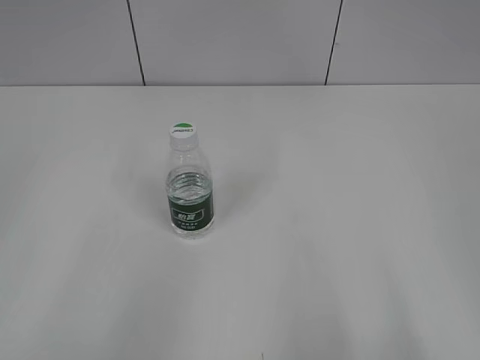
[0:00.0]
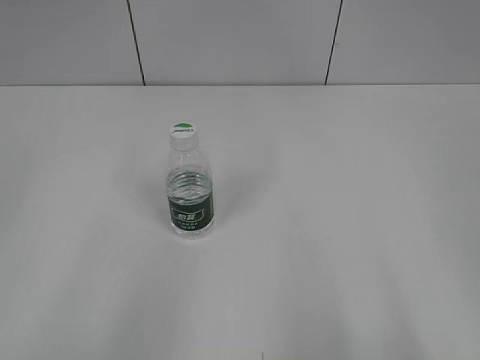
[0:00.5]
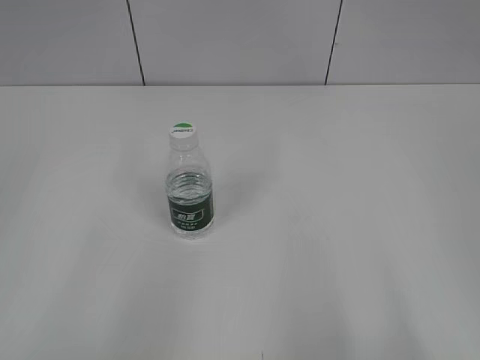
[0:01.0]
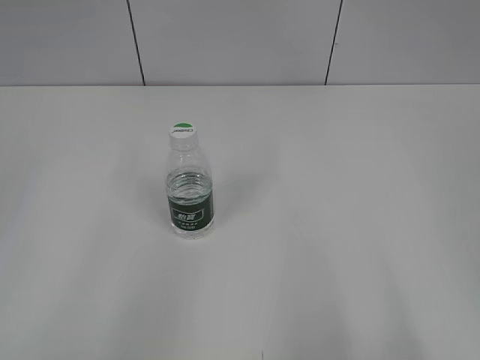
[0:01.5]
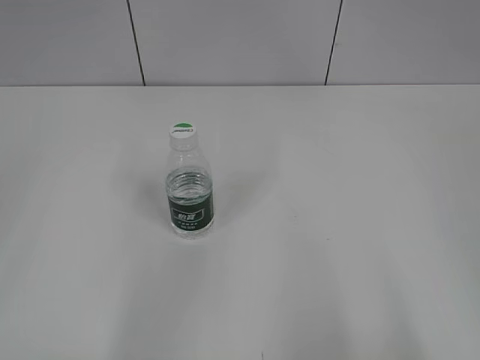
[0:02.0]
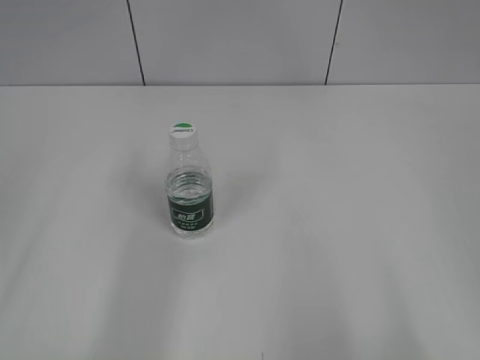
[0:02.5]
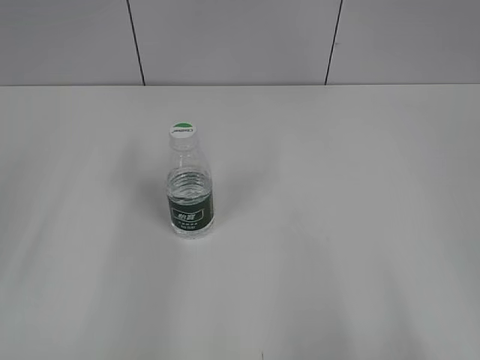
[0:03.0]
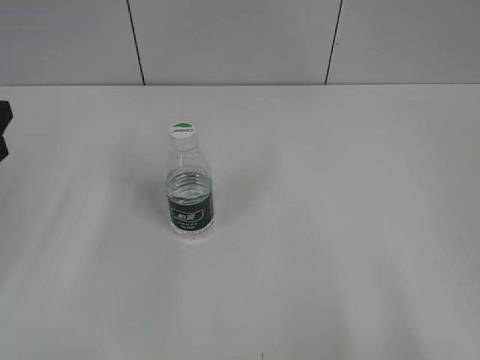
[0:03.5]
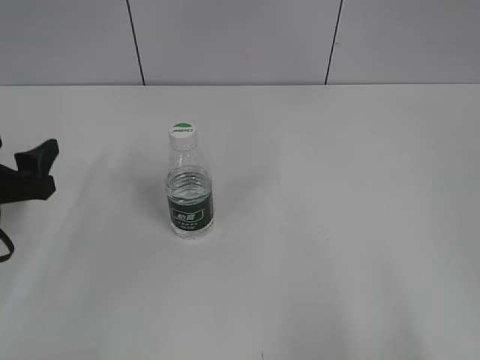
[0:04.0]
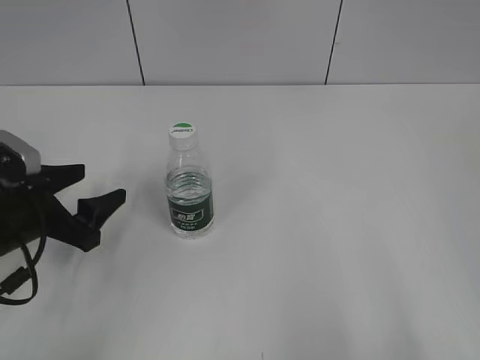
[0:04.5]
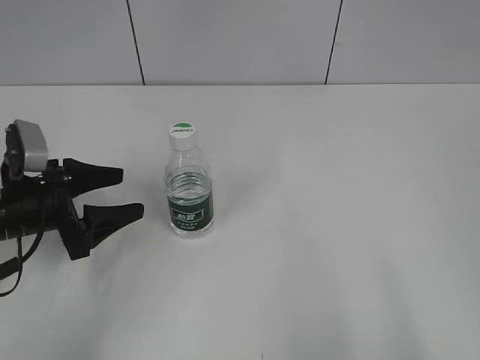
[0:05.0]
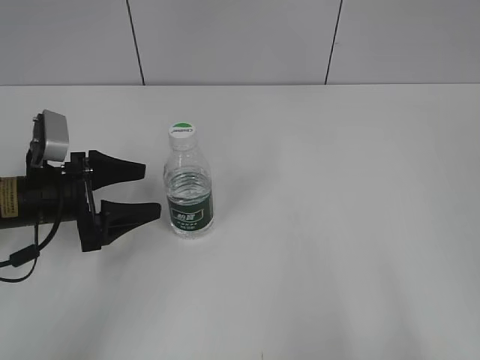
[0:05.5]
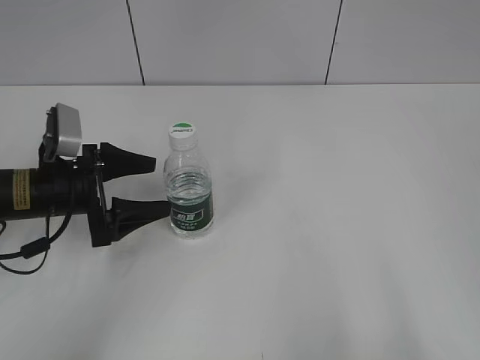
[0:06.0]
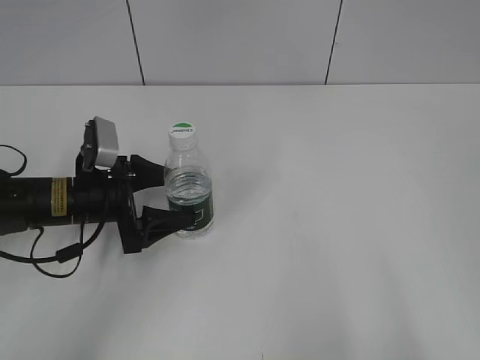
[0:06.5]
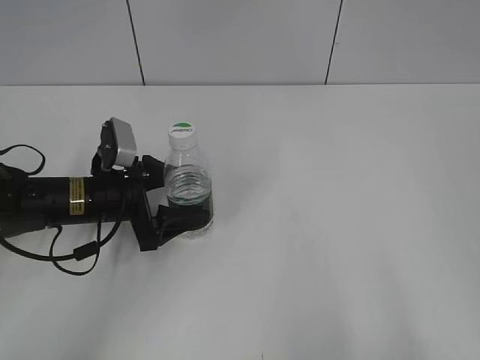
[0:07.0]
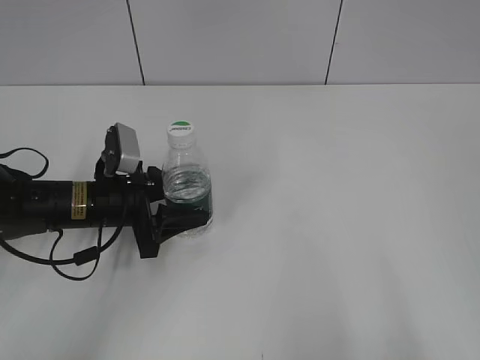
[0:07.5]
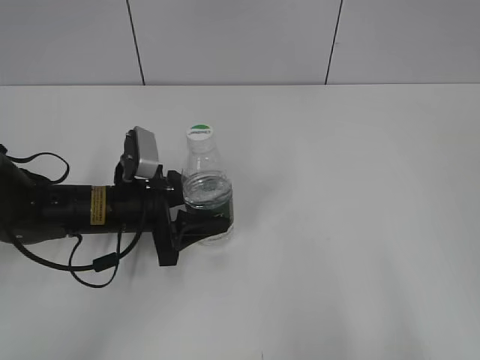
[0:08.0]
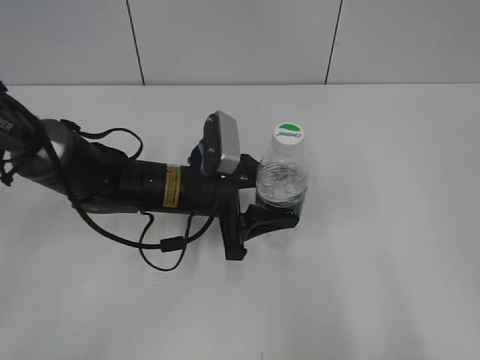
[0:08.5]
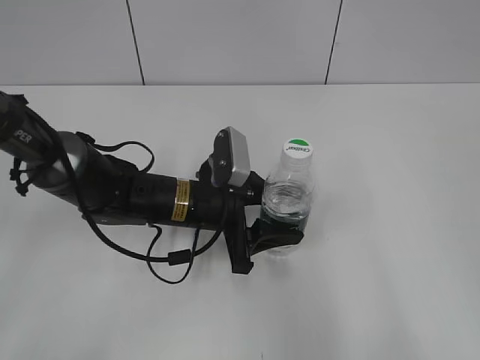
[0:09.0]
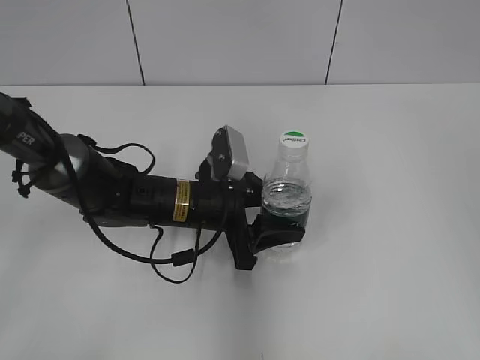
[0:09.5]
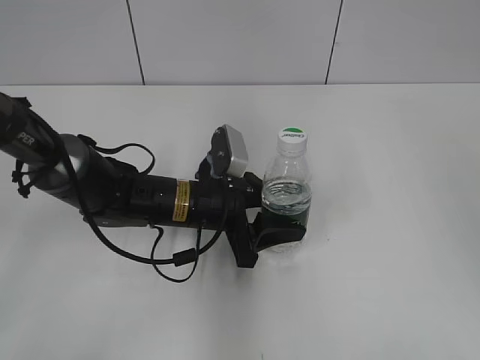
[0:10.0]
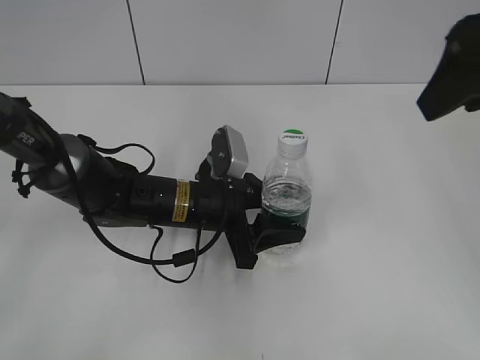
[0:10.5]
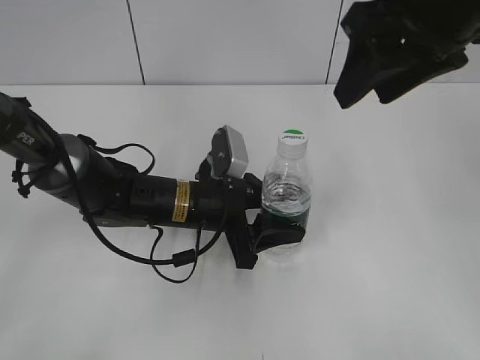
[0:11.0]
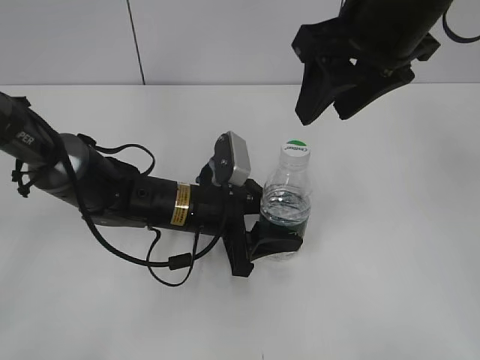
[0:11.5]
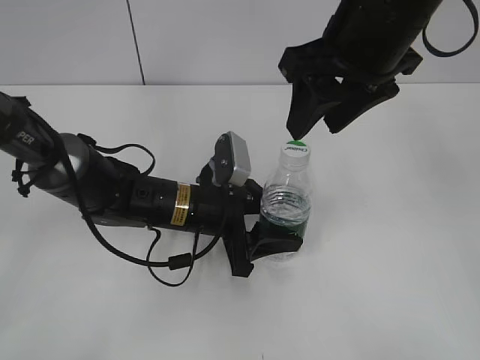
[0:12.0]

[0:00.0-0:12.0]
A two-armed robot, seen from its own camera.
Step, 0.0 to 7.5 s: Grasp the bottle and move it to the center of the table with the left gripper.
Step, 8.0 to 9.5 s: Lift the bottle and move it to the center of the table with the left gripper.
2.0 to 4.0 s: The left gripper moves forward and downward, some 30 cm.
4.0 to 6.0 s: The left gripper is displaced to the right and forward by roughly 10 cm, and opens its fingers.
6.0 to 8.0 s: The left gripper heads to the right, covering approximately 5 cm, and closes its fingers.
8.0 to 10.0 s: The right gripper moves forward and upward, roughly 20 cm, and closes up. The left gripper is displaced to the right by some 10 cm.
10.0 to 12.0 s: The right gripper heads to the left and forward, covering roughly 20 cm.

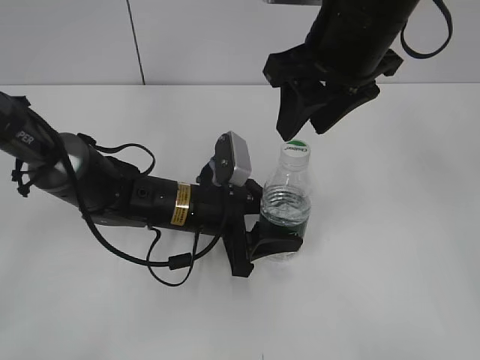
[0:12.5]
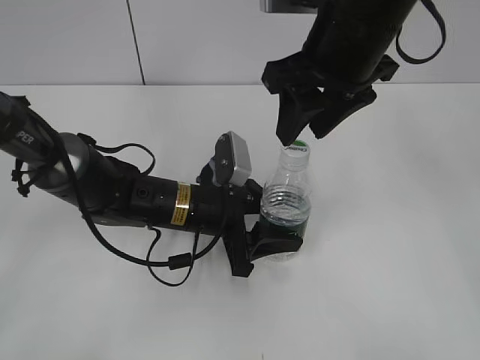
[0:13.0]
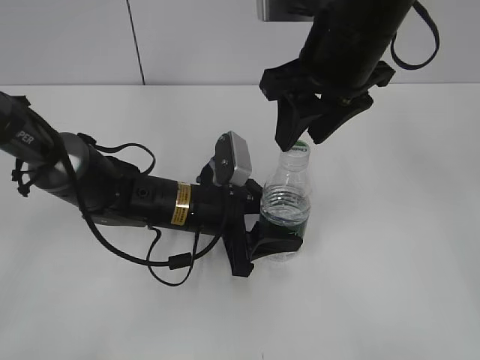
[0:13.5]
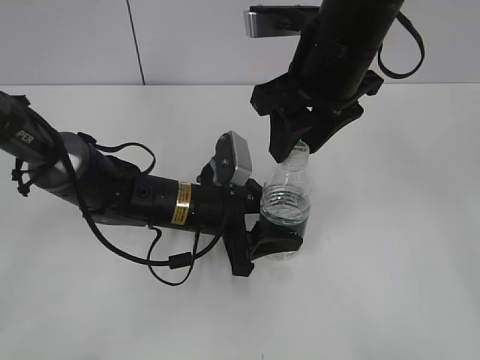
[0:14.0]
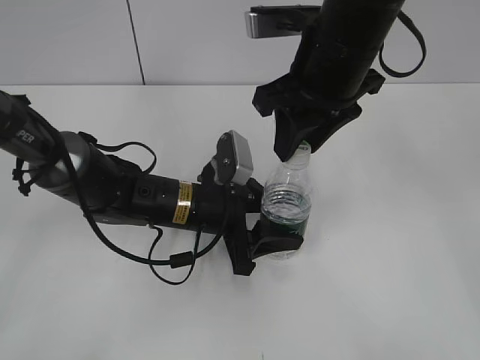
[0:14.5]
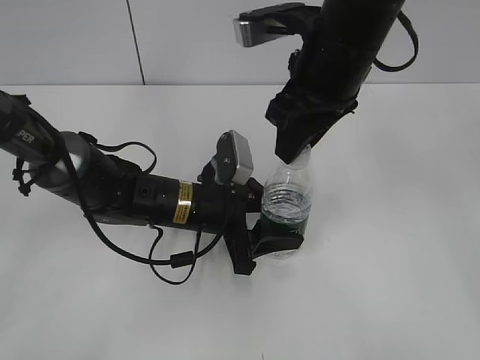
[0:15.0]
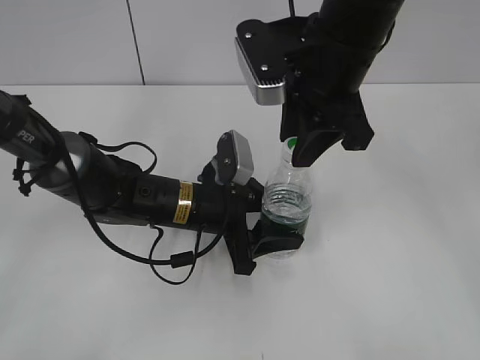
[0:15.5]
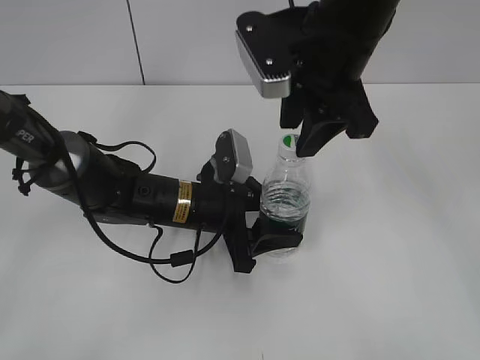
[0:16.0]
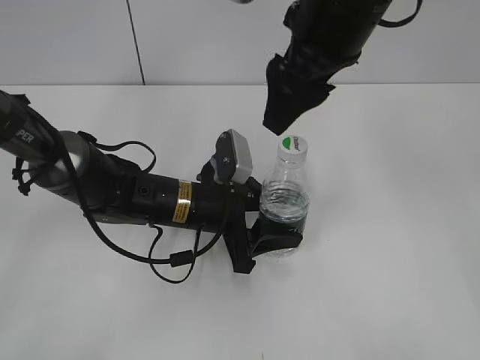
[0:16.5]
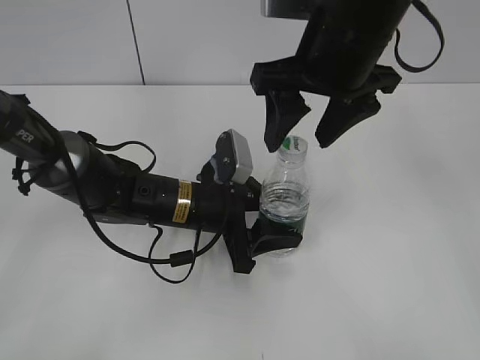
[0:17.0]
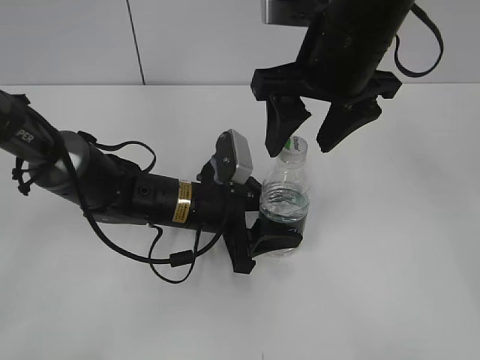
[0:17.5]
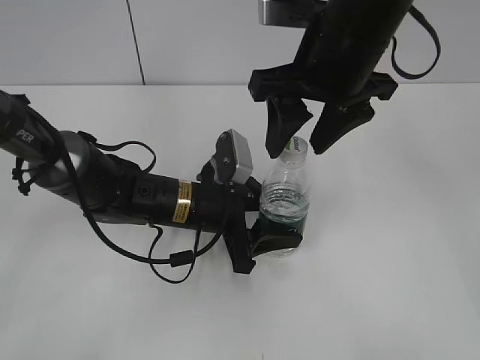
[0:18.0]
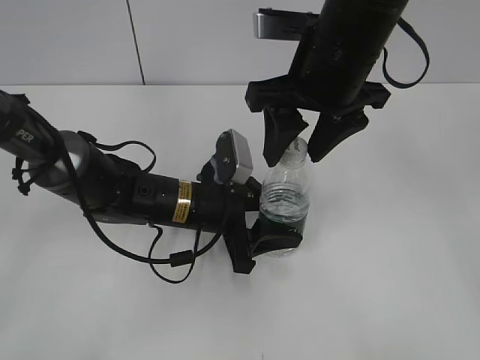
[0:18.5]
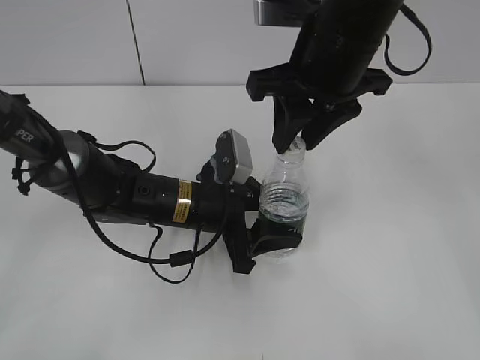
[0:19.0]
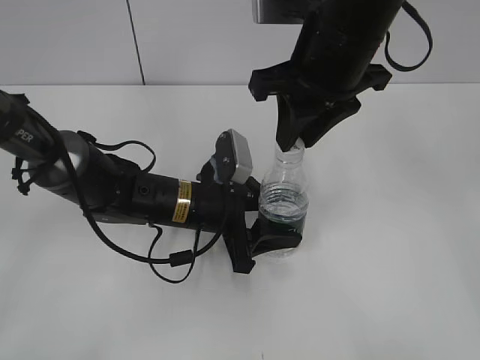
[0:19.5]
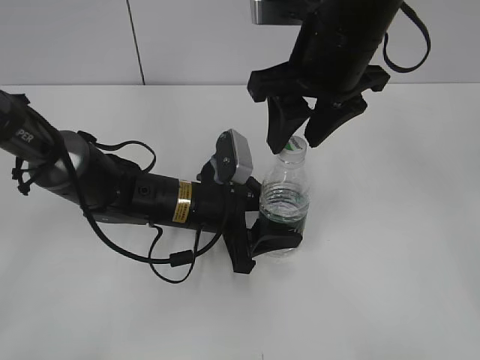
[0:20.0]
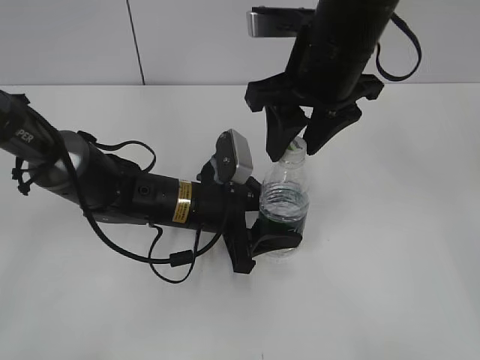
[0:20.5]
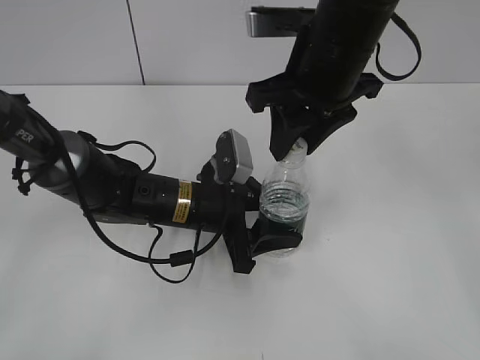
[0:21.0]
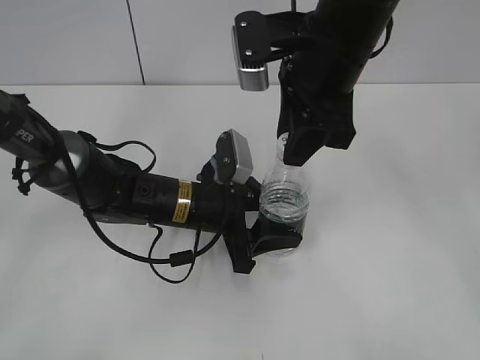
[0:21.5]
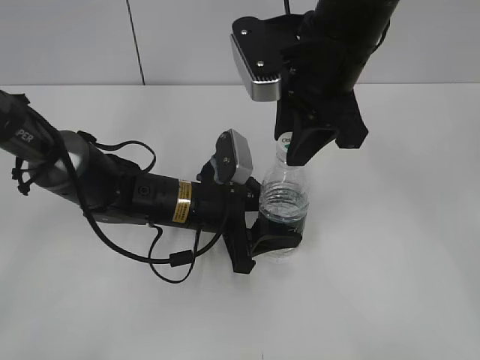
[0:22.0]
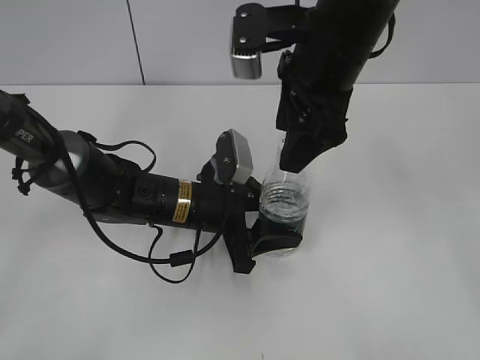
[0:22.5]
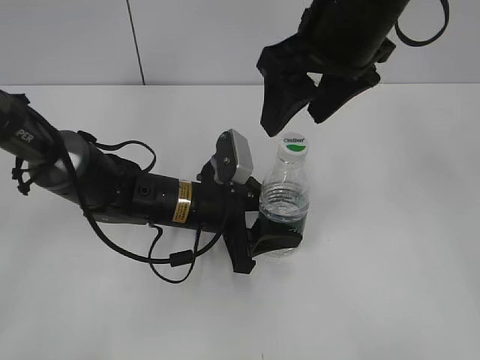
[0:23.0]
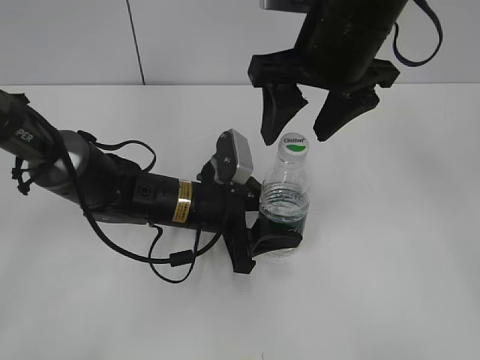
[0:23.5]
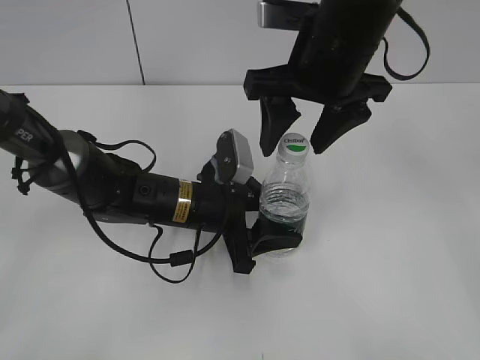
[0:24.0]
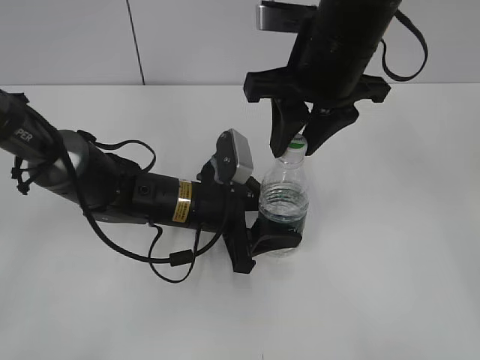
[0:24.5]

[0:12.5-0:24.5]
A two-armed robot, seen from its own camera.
12.5 to 14.5 s: The grippers stay close to where they were, moving slightly.
14.5 to 16.5 s: The right gripper opens its fingers.
18.5 to 20.5 s: The right gripper closes and opens again.
20.5 to 22.5 s: The right gripper opens its fingers.
22.5 to 24.5 s: The right gripper closes.

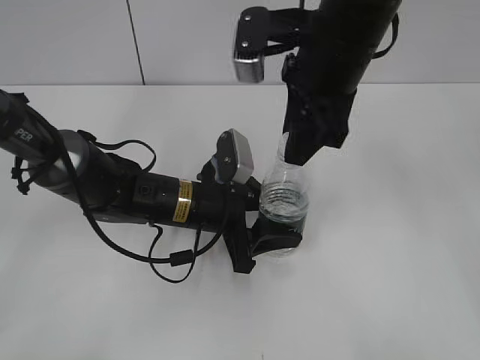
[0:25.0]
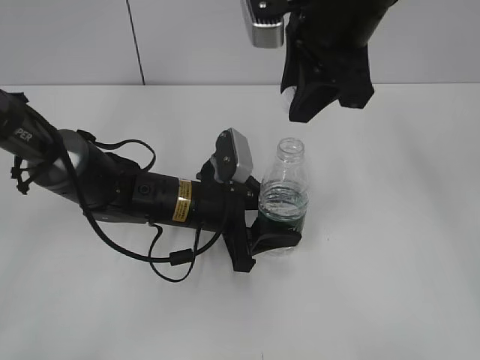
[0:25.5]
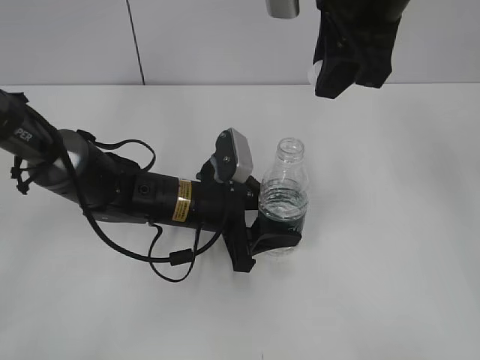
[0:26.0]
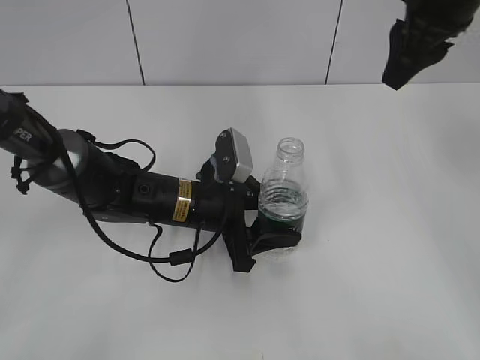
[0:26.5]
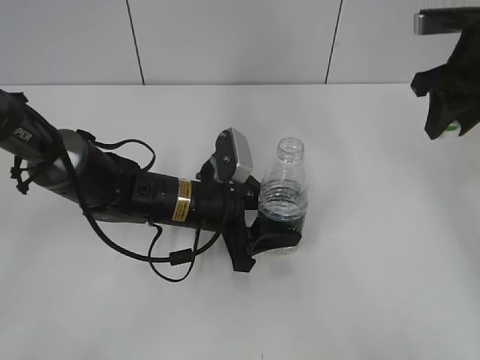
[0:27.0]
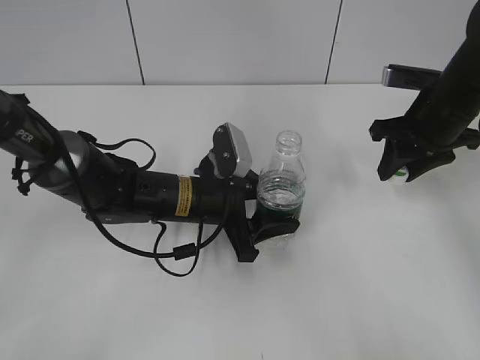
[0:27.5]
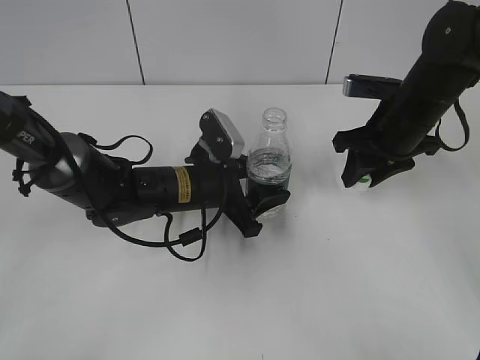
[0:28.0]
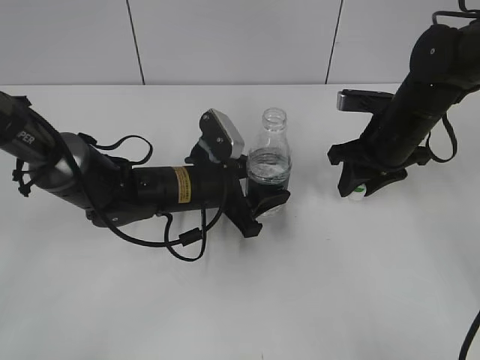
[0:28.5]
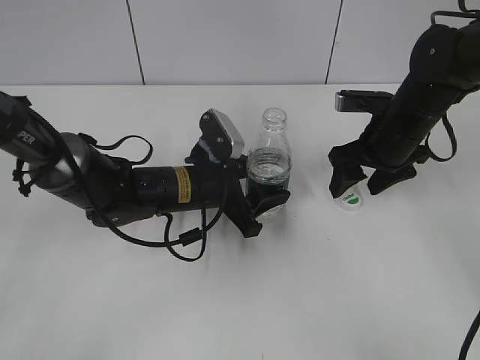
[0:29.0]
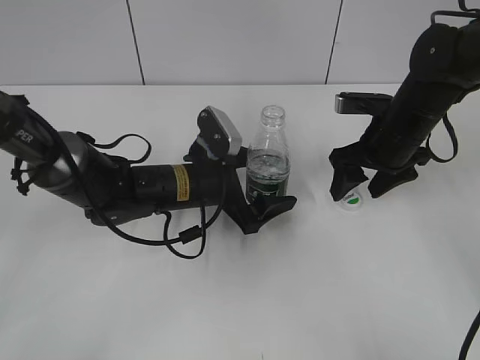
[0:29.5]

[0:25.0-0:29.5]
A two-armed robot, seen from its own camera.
Step, 25.5 to 29.0 s: Place the bottle cap on the table with the right gripper.
25.0 to 27.0 s: The right gripper is displaced to the right by approximately 20 cm.
27.0 to 29.5 s: The right gripper goes approximately 15 cm downward and to the left, and opens. The left gripper opens up.
